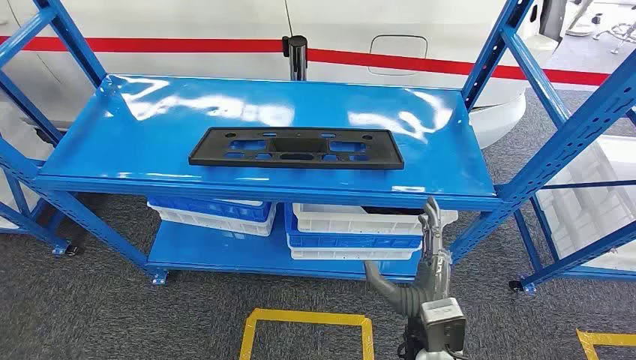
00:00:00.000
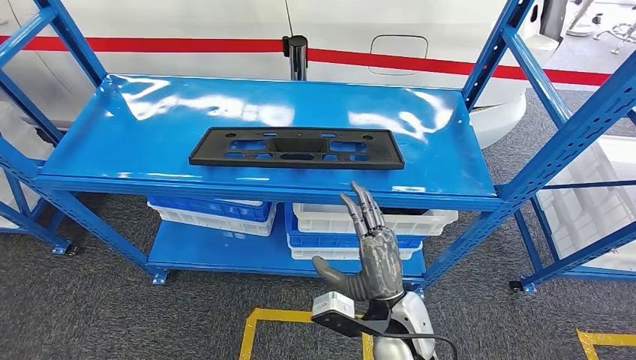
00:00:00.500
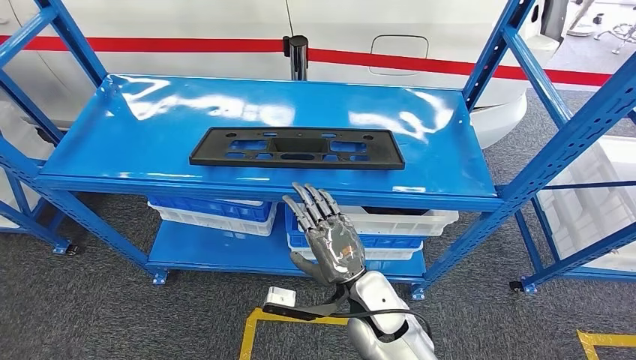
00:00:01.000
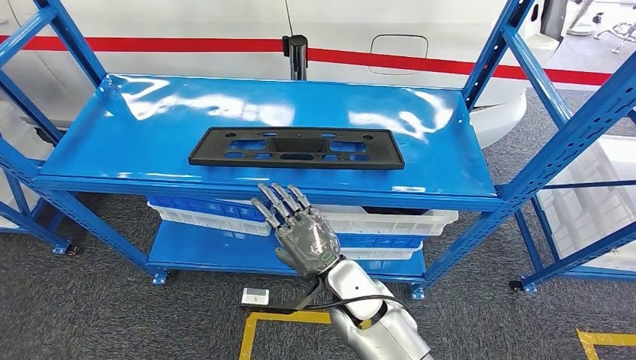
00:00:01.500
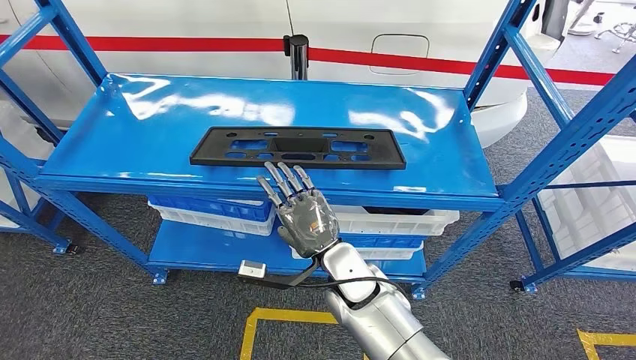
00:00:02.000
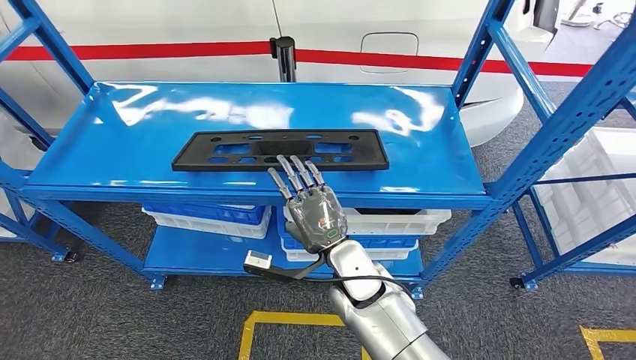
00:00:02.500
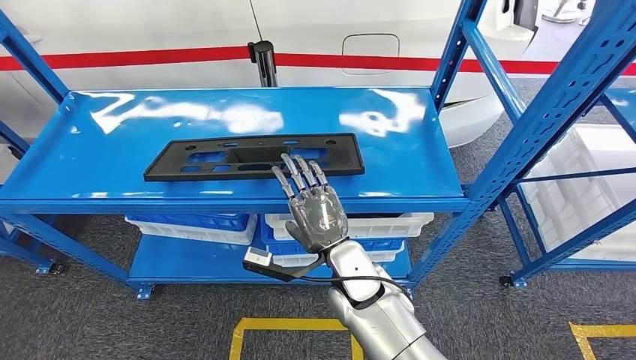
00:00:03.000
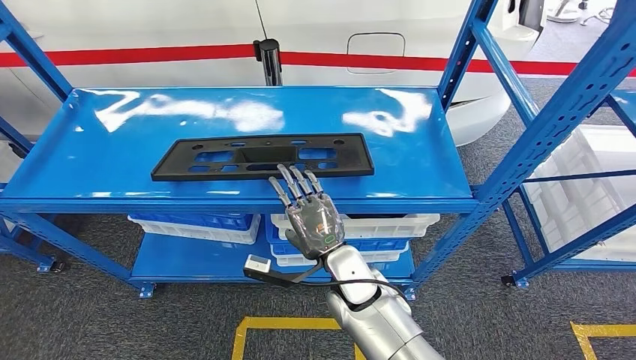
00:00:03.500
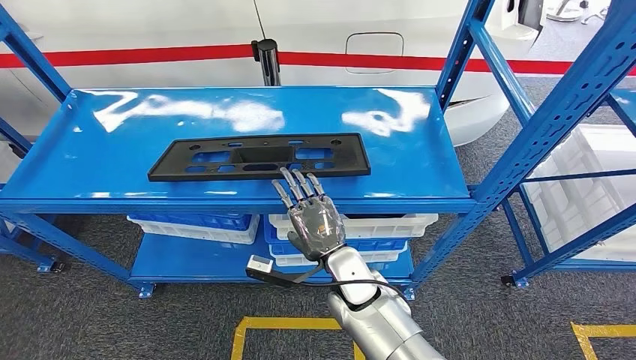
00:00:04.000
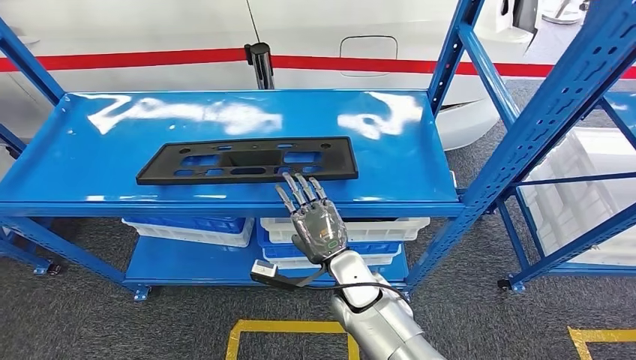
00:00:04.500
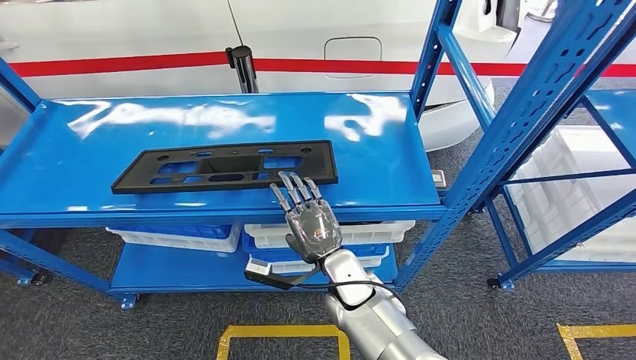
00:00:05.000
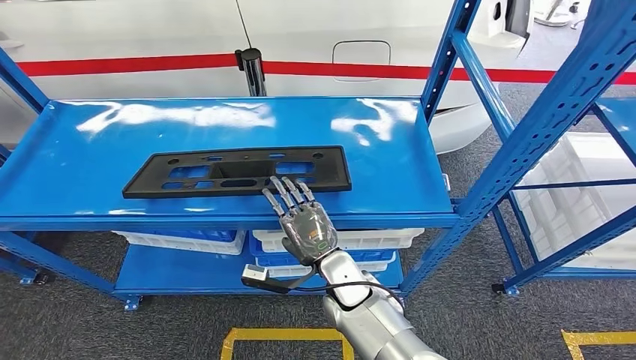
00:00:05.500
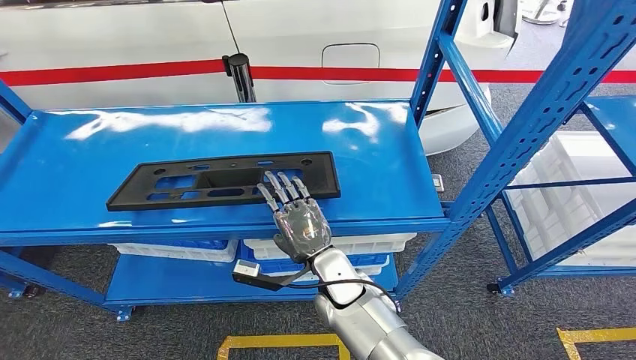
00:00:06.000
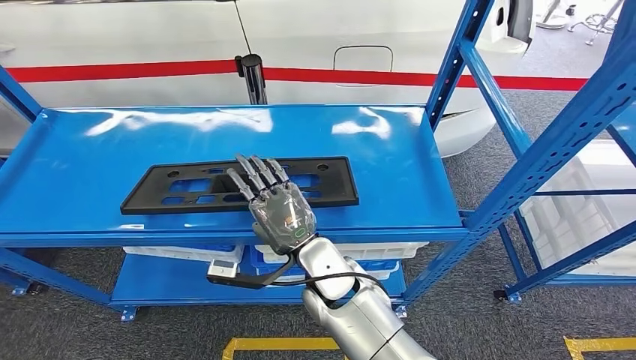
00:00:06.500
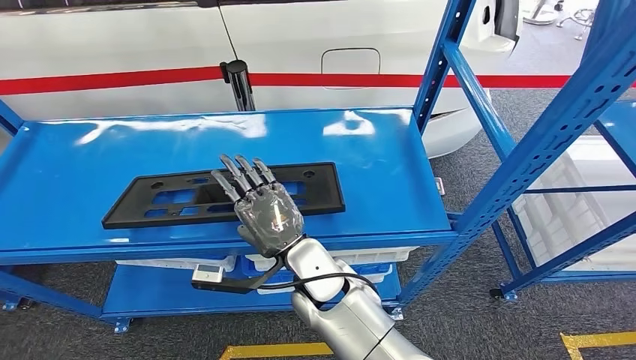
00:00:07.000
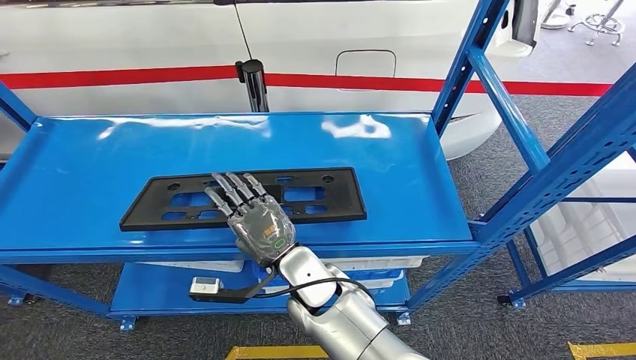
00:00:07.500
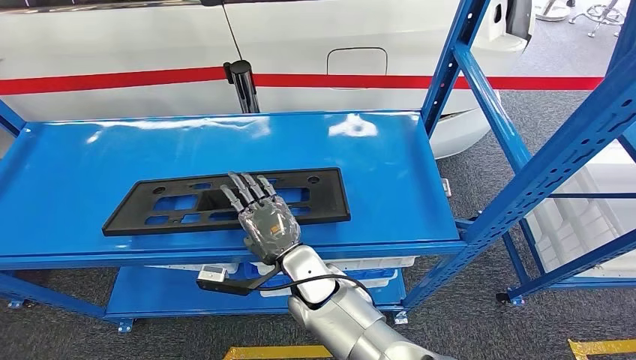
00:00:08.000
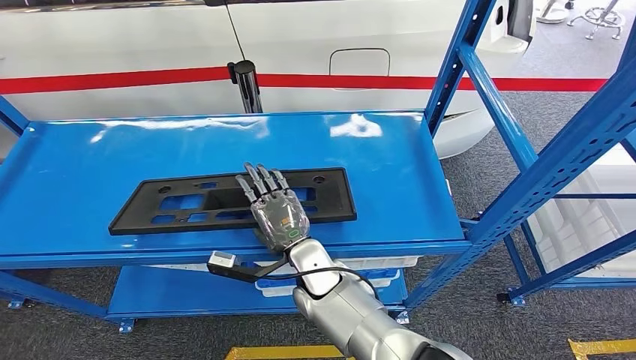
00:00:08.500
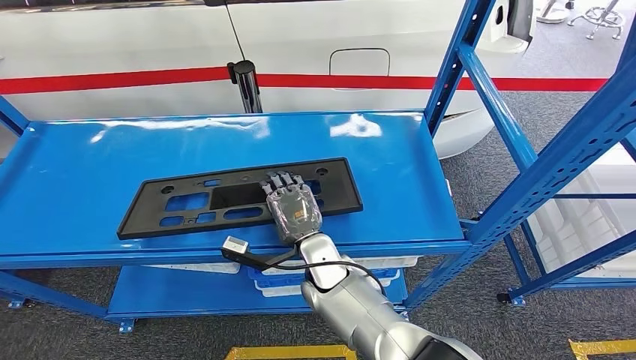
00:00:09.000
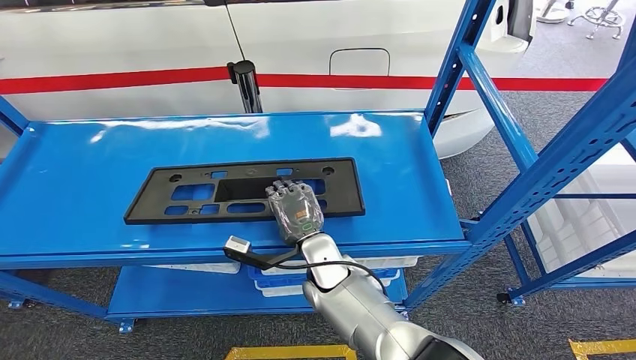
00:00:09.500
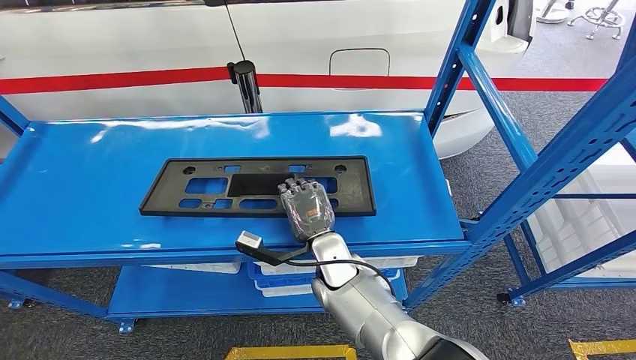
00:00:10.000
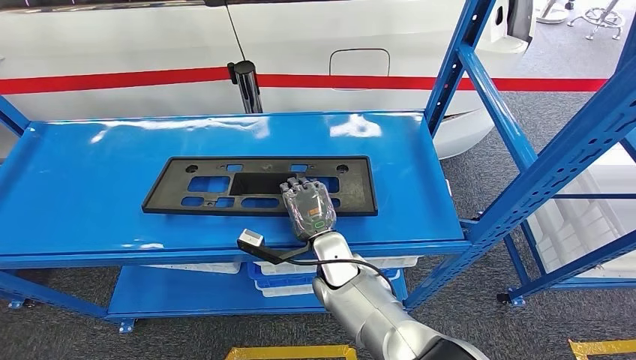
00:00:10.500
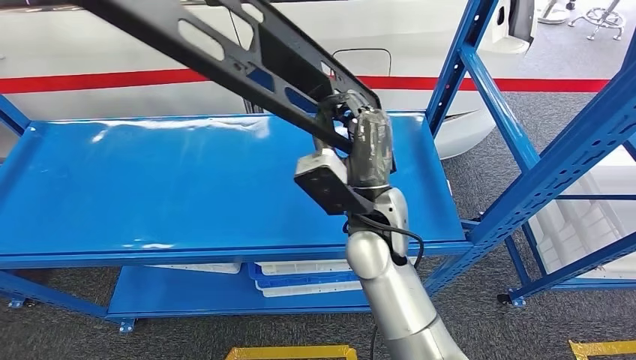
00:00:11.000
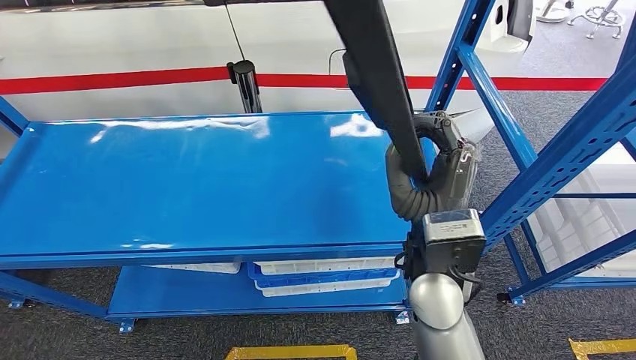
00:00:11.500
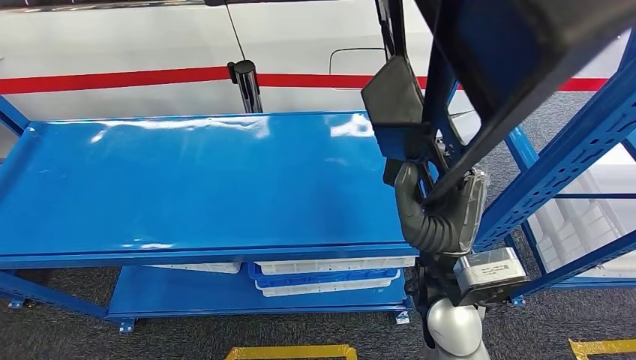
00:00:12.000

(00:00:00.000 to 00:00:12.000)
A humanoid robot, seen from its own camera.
00:00:08.000 - 00:00:10.000: The right hand changes place by approximately 5 cm.

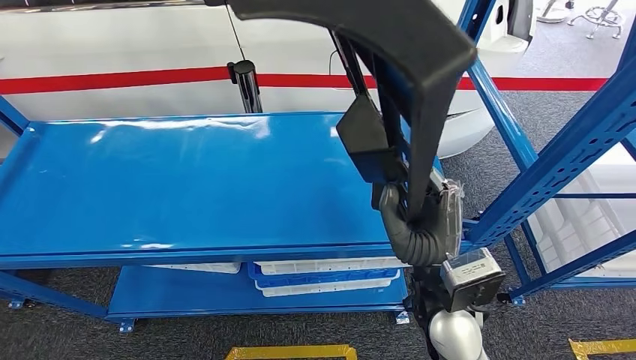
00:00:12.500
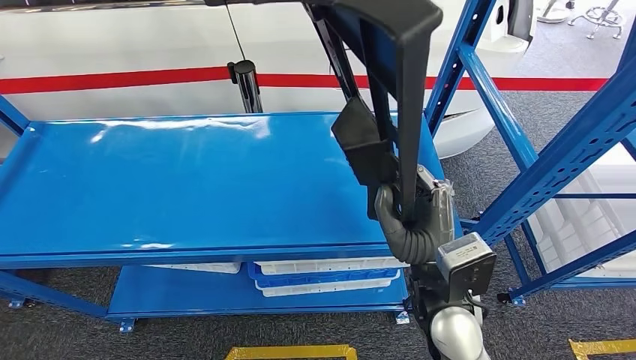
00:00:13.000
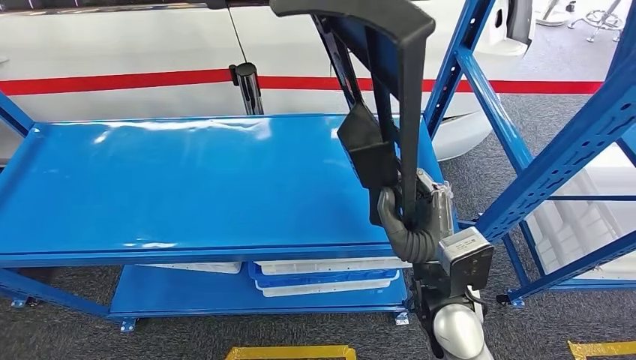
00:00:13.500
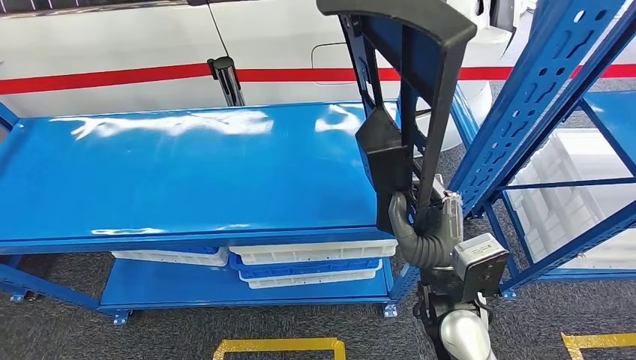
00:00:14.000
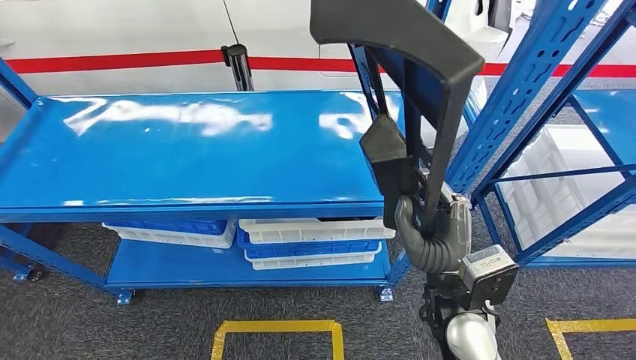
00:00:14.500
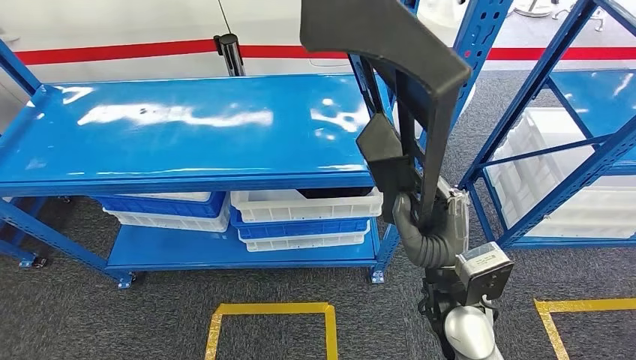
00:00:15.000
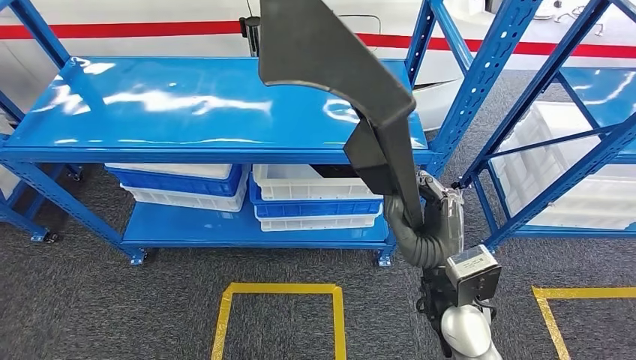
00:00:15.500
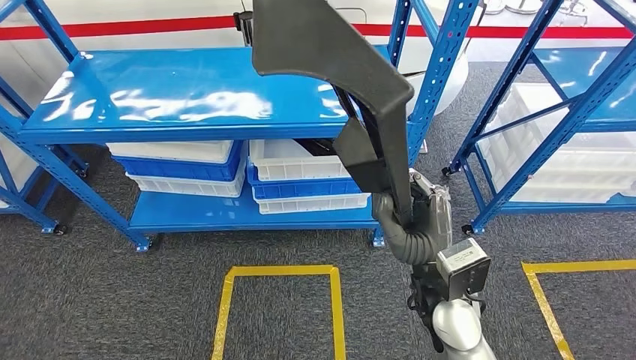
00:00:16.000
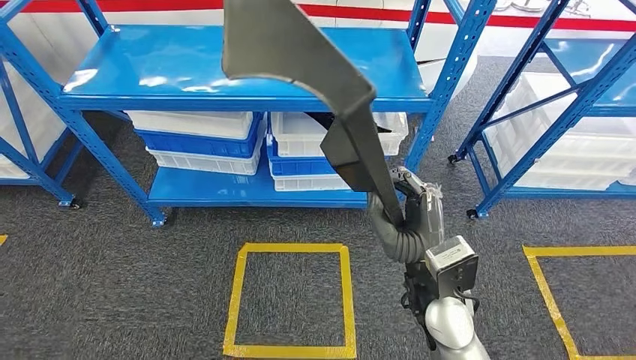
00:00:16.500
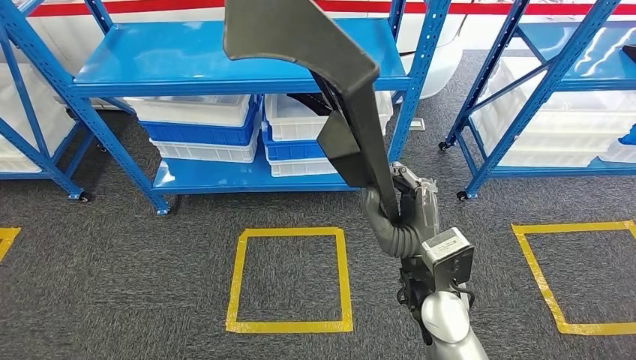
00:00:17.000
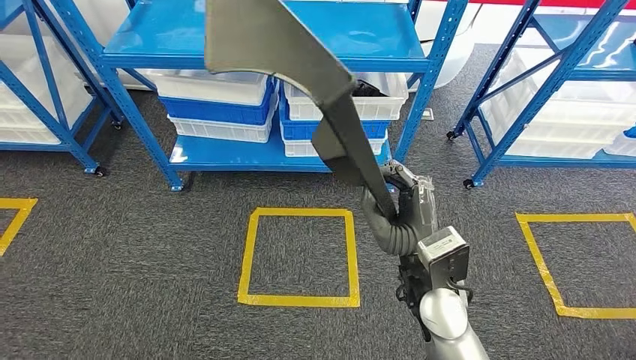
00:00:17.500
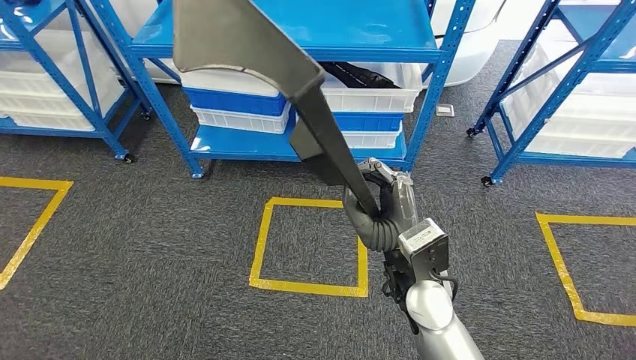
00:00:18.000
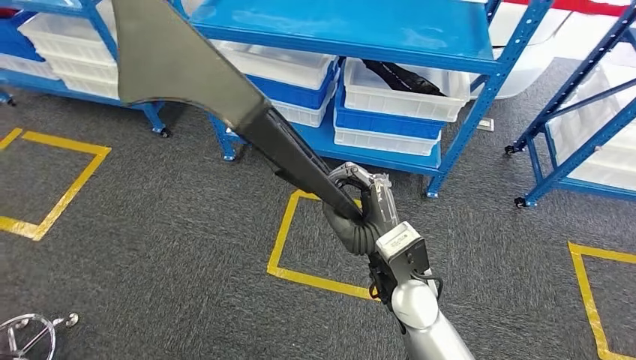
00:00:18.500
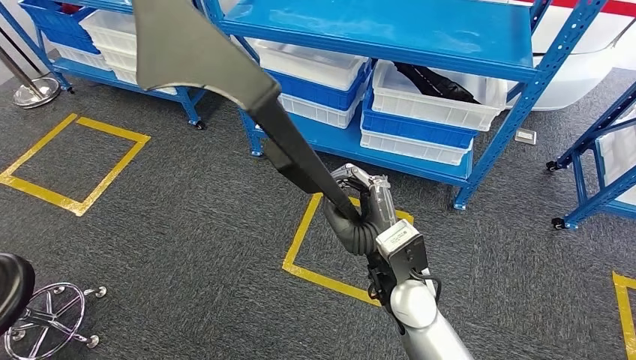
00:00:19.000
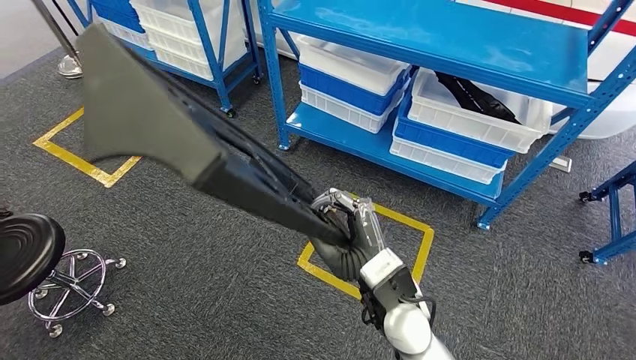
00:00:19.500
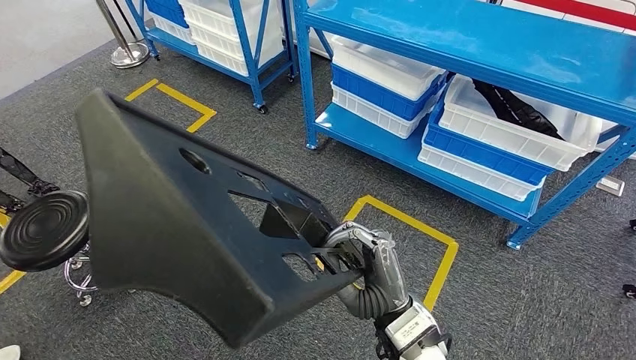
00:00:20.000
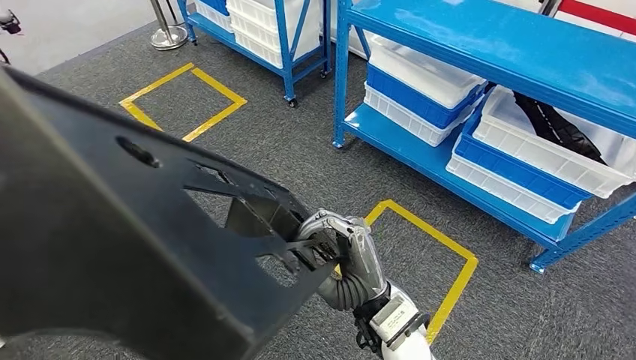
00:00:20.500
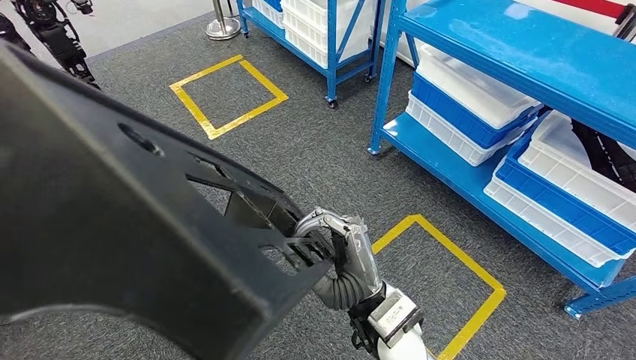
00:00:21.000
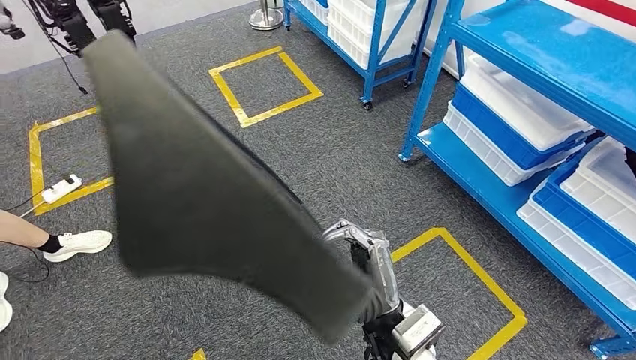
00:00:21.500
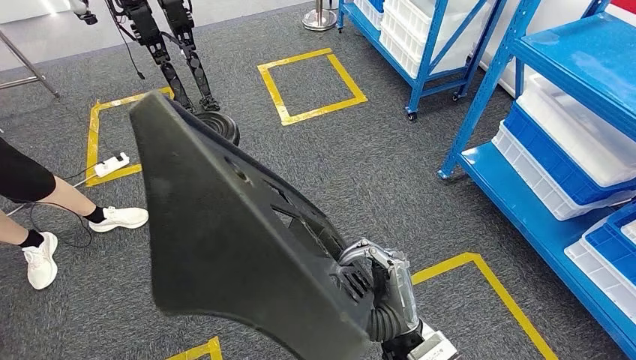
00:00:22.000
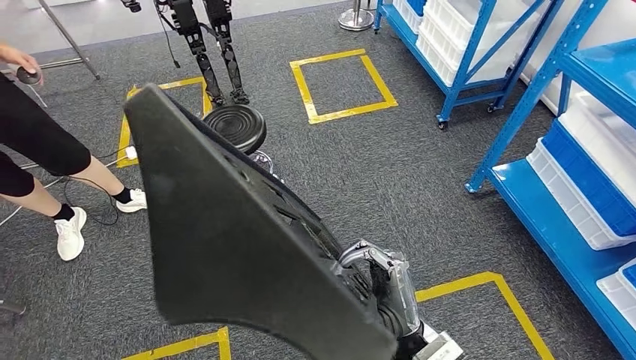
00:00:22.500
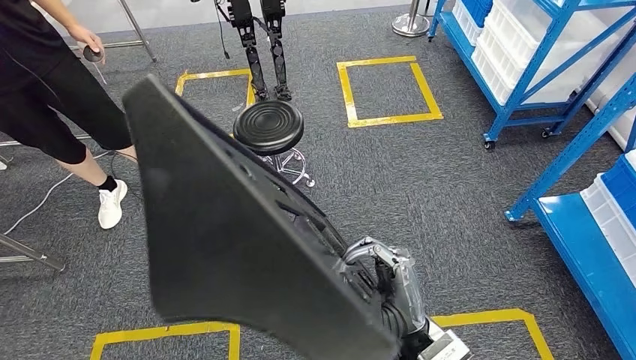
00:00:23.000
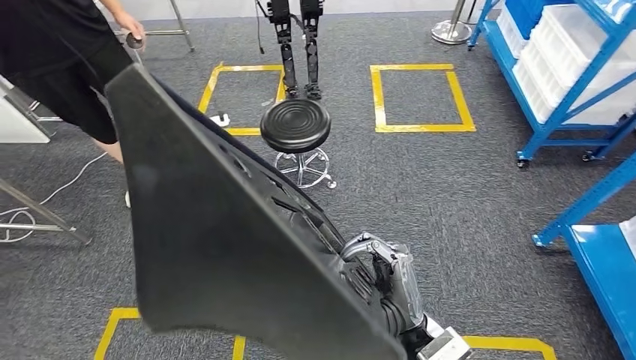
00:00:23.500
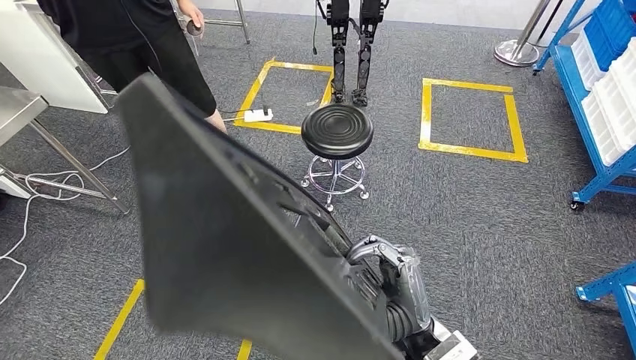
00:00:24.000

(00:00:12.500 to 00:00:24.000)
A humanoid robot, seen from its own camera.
Step, 00:00:12.500 - 00:00:15.000: Pick up the large material from the shelf.
